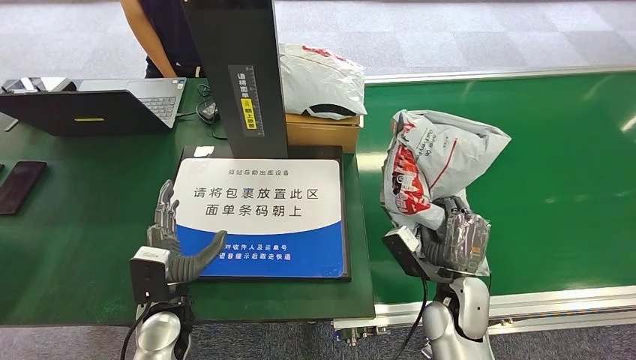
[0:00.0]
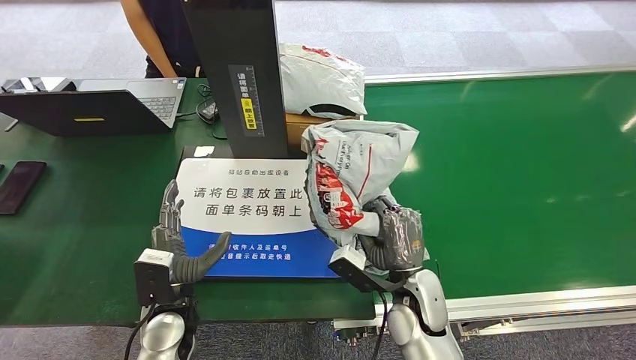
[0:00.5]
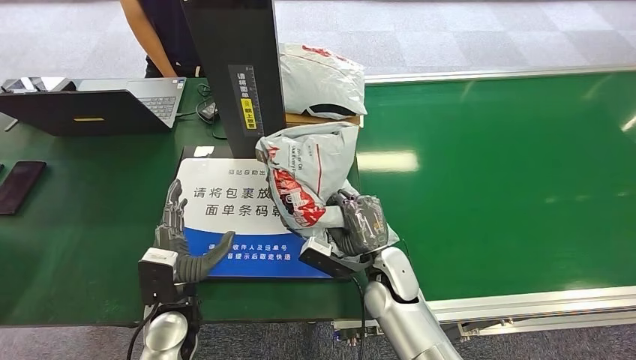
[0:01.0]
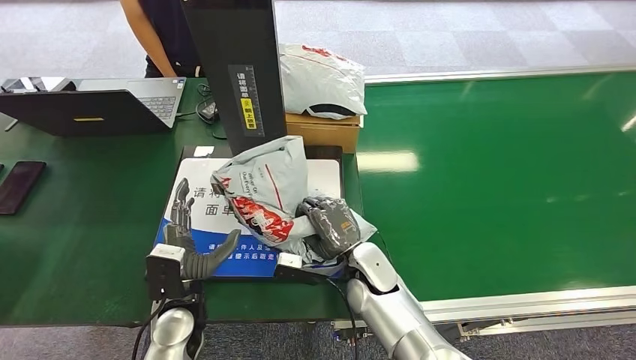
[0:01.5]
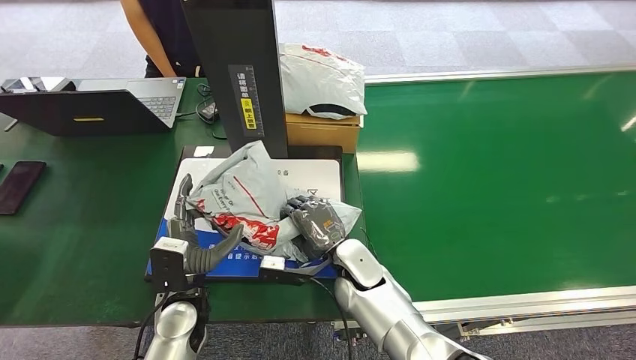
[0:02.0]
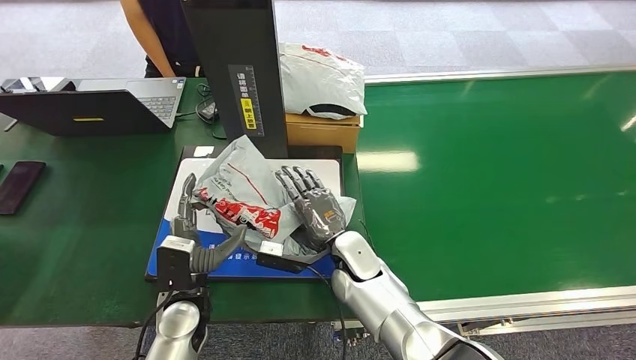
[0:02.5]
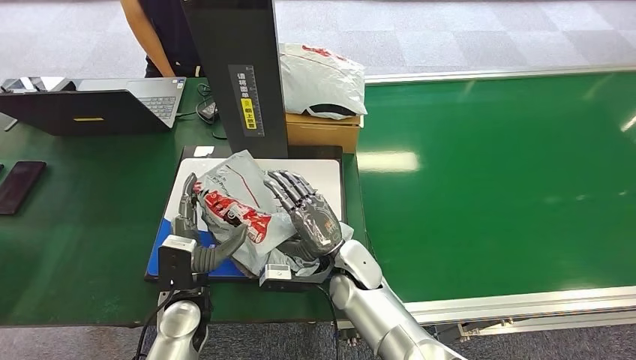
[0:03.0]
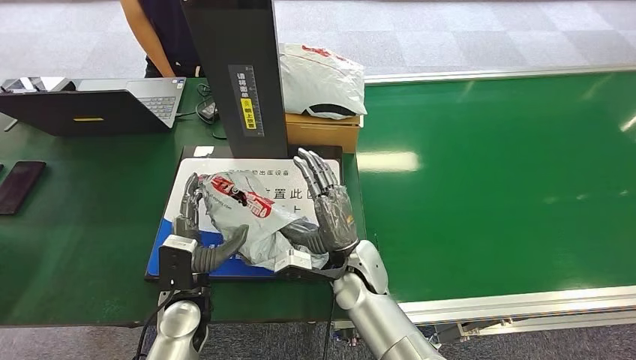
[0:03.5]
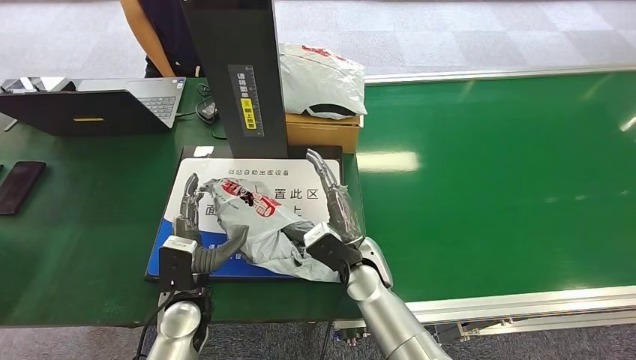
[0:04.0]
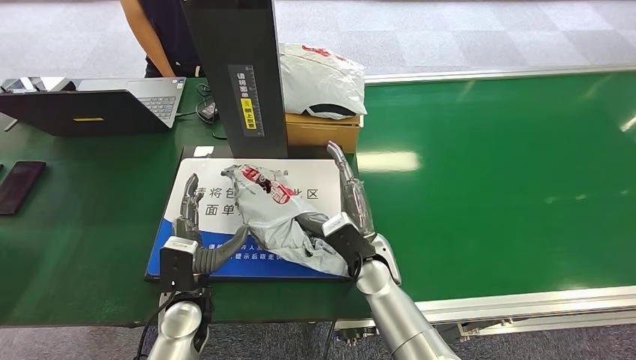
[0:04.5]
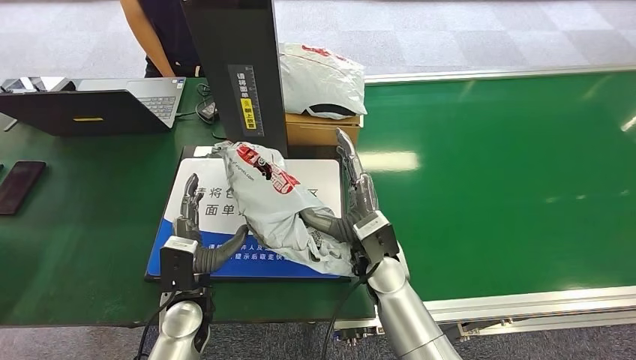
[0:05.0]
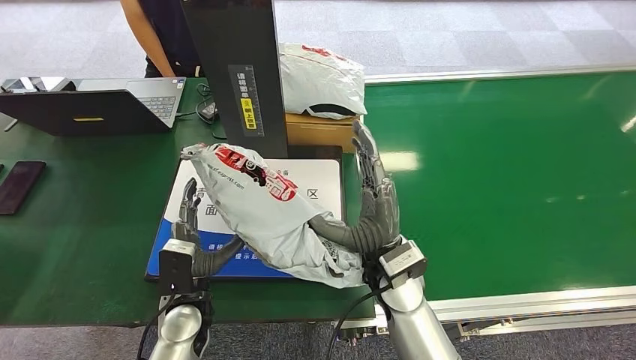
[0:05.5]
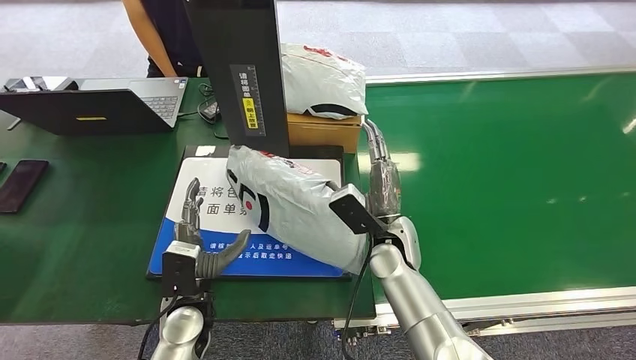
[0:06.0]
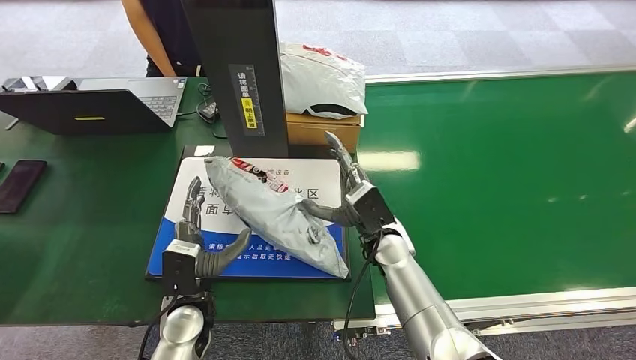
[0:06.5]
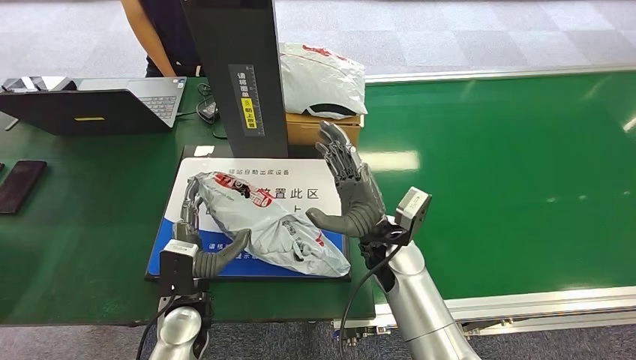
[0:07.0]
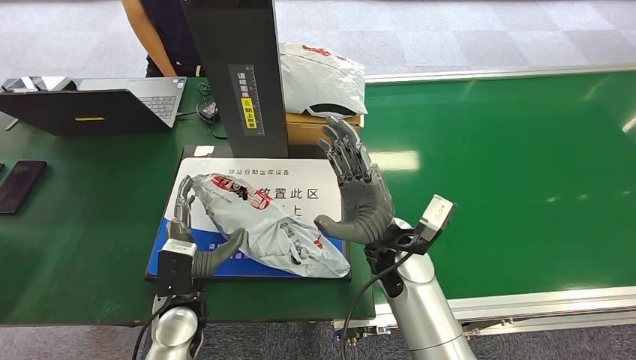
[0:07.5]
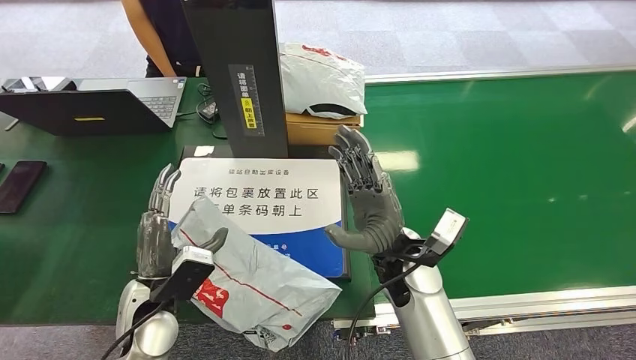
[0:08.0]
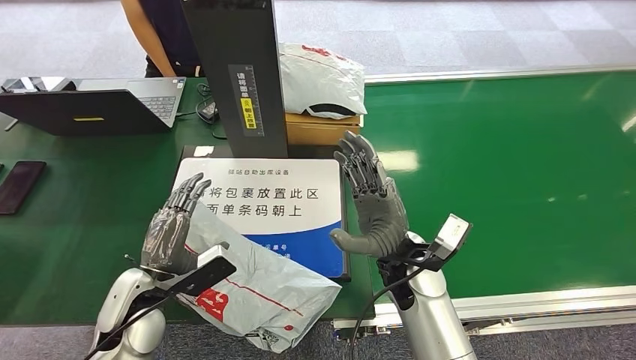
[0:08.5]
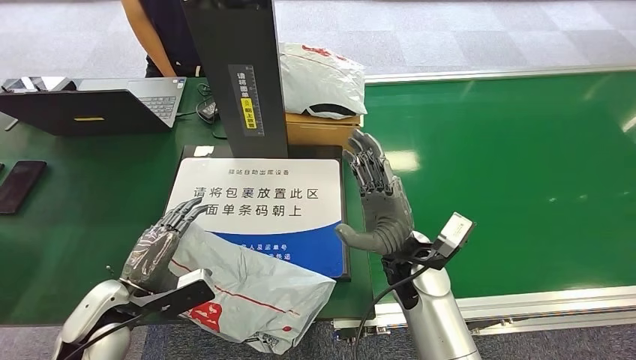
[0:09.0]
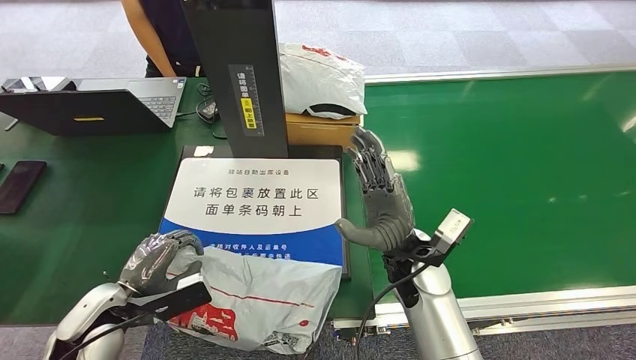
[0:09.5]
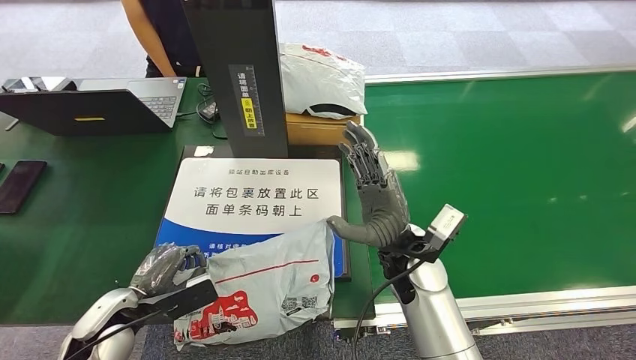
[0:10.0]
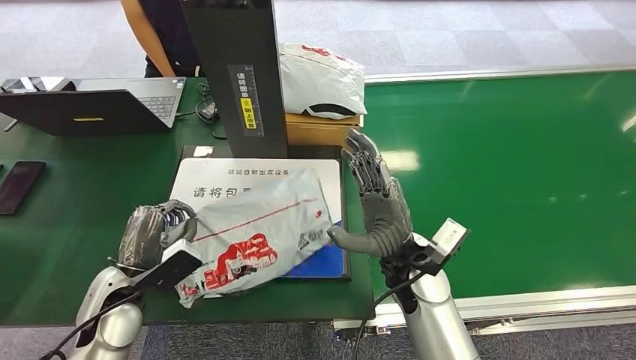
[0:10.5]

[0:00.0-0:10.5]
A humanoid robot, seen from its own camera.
Task of the whole recording: Weigh the package on the weighing device and place it in the left basket.
Step, 0:00.0 to 0:06.5: Place the package onto the inbound machine.
0:00.0 to 0:02.0: The right hand travels to the left and forward by about 20 cm.
0:04.0 to 0:06.5: The right hand shifts by roughly 5 cm.

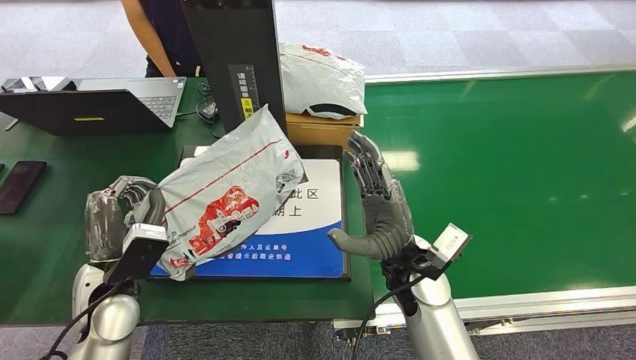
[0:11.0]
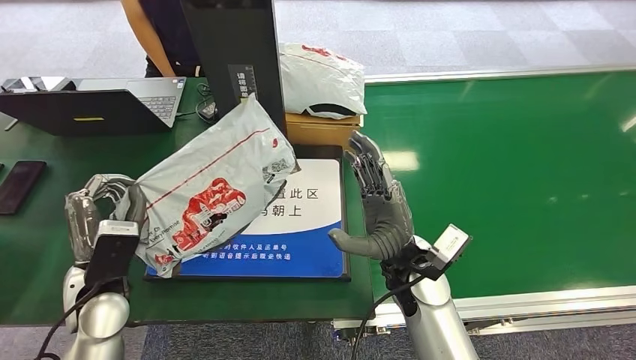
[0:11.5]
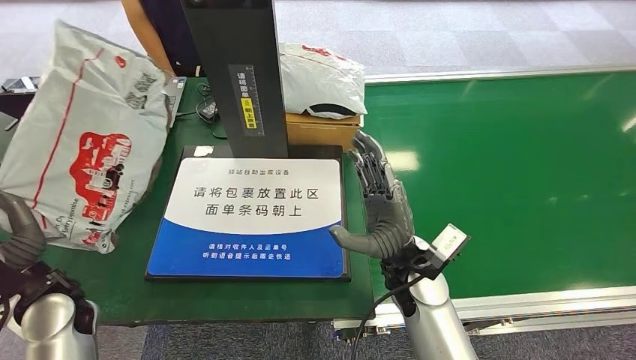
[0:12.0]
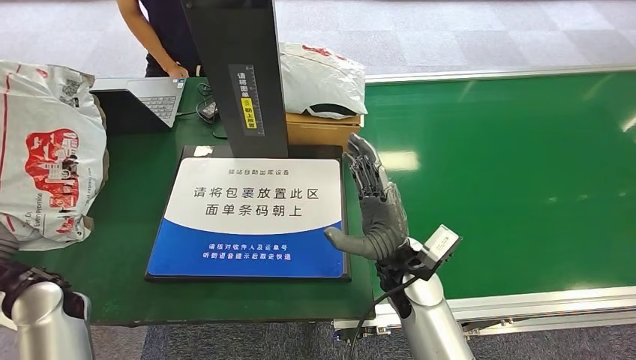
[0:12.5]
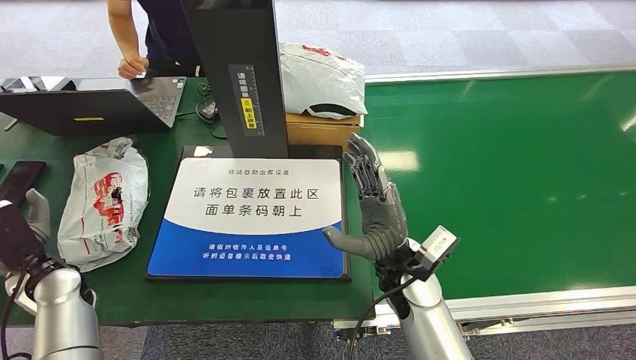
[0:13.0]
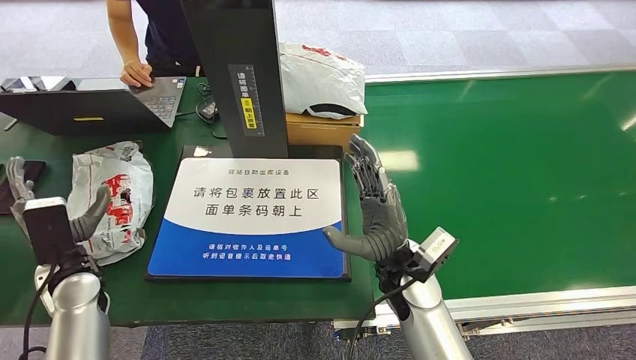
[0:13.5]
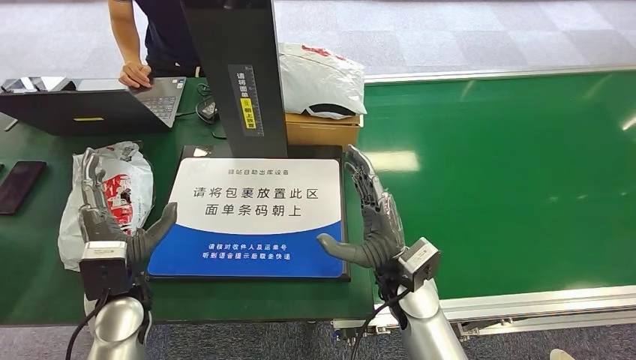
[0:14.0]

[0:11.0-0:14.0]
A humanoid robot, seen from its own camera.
Task of the whole recording: Weigh the package on the weighing device and place it in the left basket.
Step, 0:11.5 to 0:14.0: Place the package into the parcel locker.

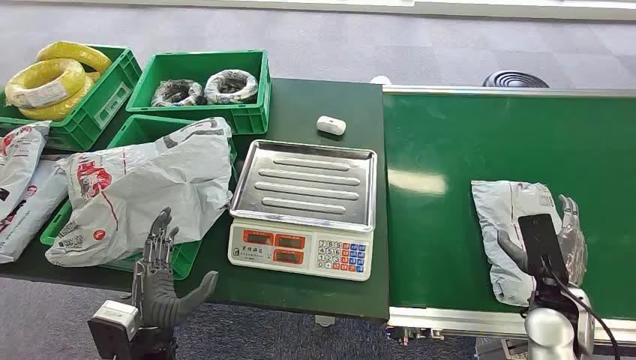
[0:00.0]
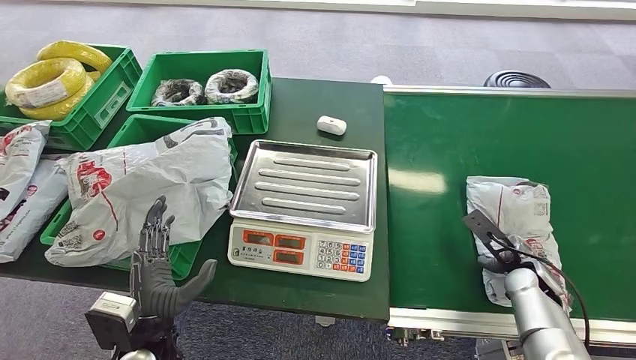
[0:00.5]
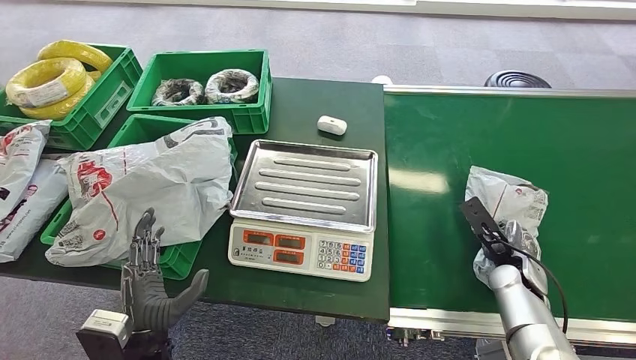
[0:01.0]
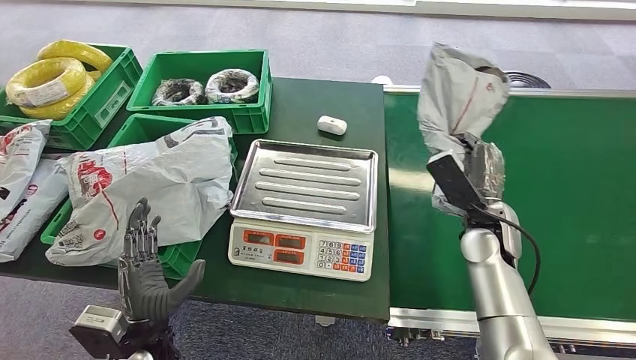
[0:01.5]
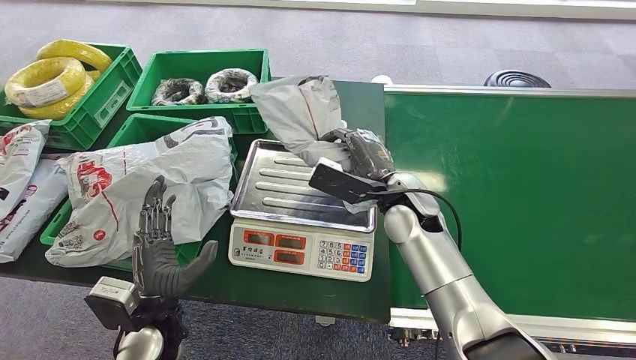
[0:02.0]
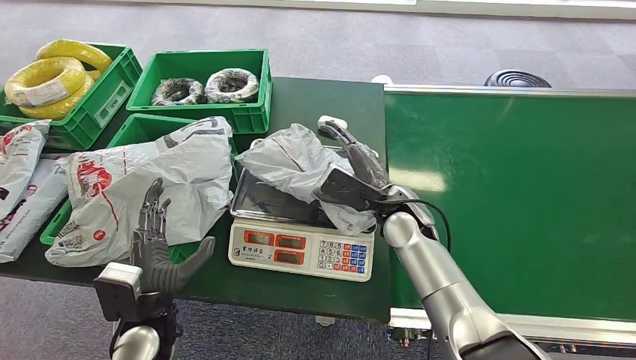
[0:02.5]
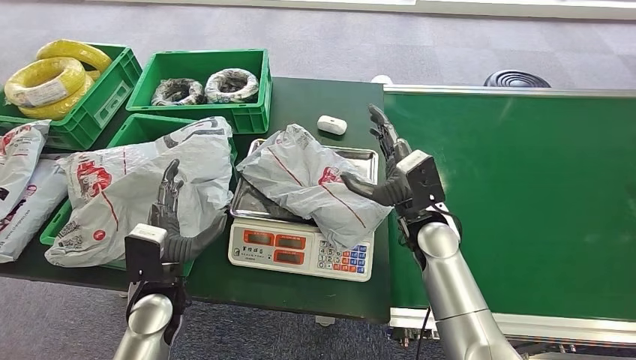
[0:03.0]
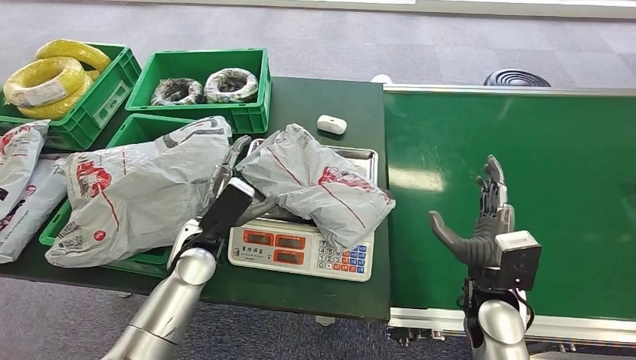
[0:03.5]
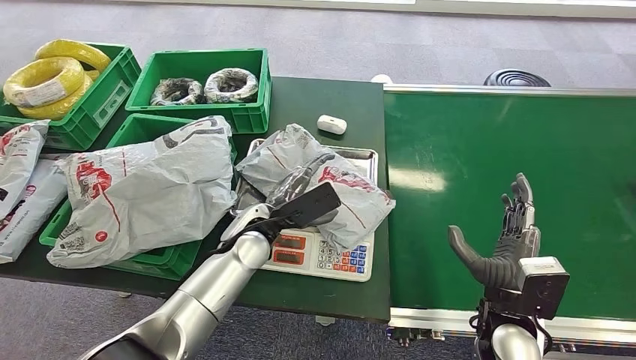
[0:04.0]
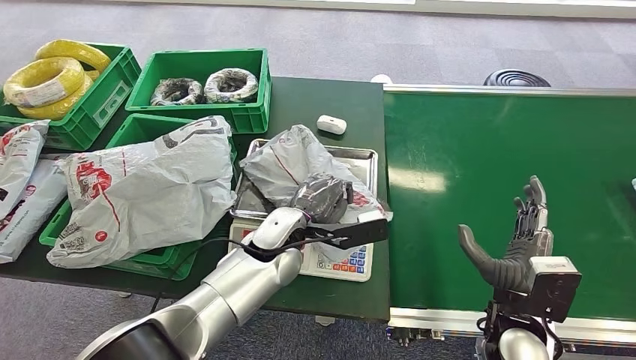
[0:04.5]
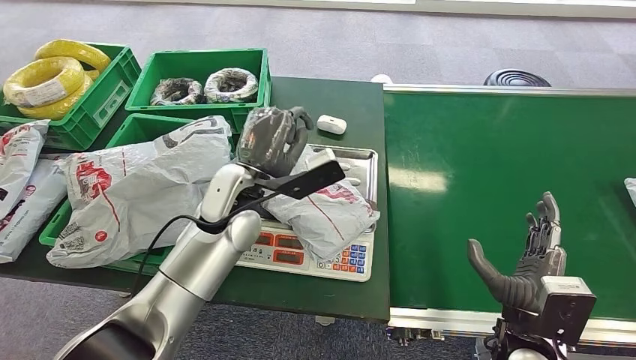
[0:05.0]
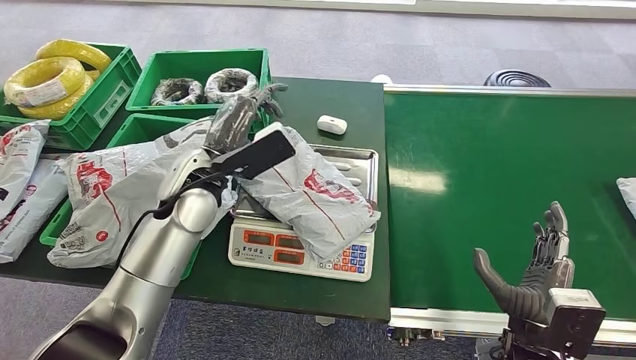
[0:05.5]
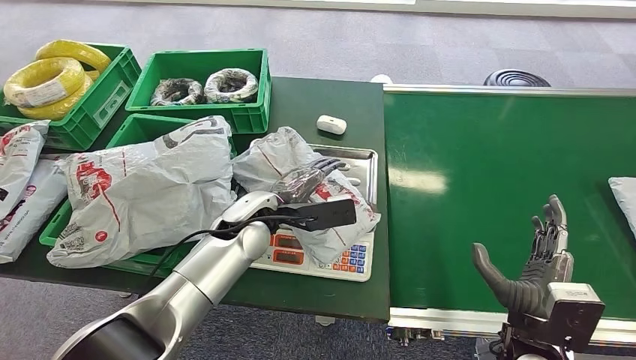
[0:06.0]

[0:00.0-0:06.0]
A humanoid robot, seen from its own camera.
Task of the whole recording: Weigh the package on the weighing device and place it in the left basket.
Step, 0:00.0 to 0:01.0: Pick up the package from the conveyor belt.
Step, 0:01.5 to 0:02.5: Place the package onto the inbound machine.
0:04.0 to 0:06.0: The left hand goes left and right, roughly 10 cm each way, reversing 2 times.
